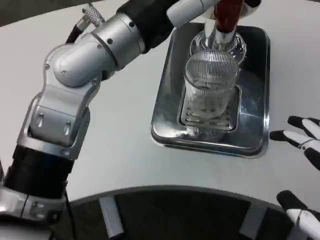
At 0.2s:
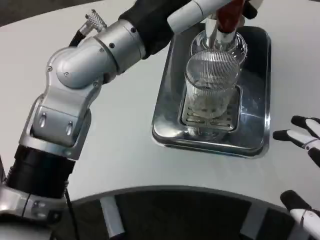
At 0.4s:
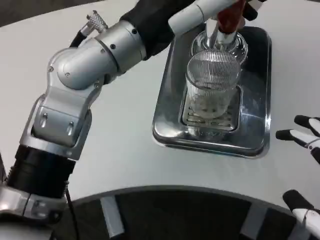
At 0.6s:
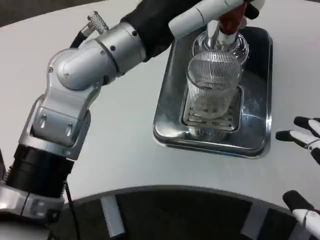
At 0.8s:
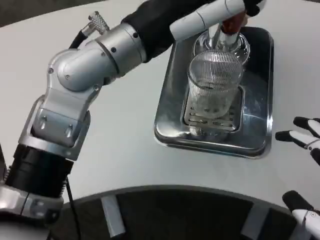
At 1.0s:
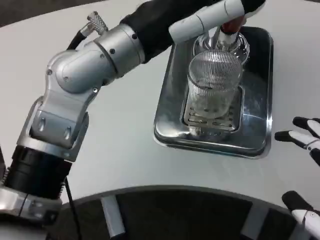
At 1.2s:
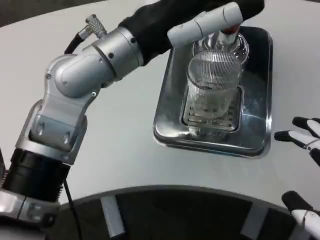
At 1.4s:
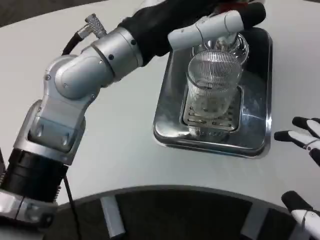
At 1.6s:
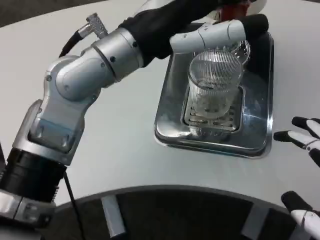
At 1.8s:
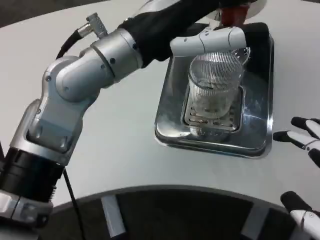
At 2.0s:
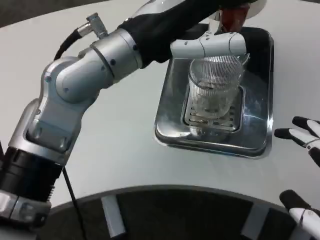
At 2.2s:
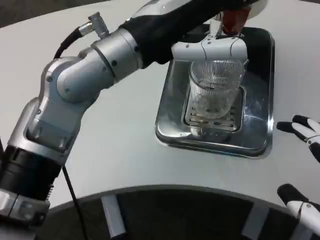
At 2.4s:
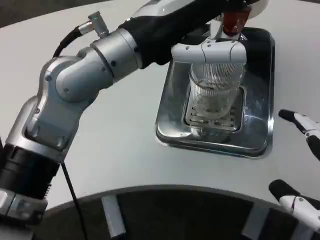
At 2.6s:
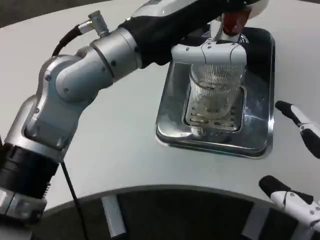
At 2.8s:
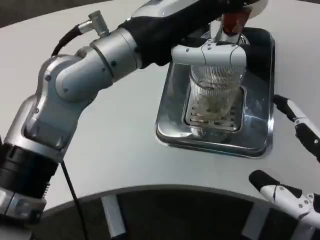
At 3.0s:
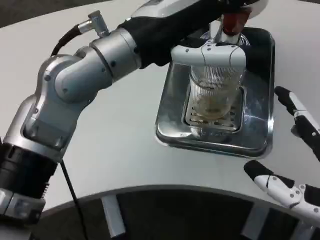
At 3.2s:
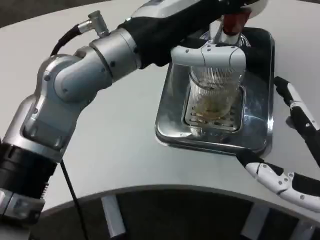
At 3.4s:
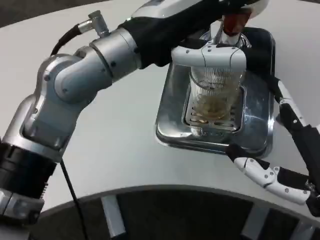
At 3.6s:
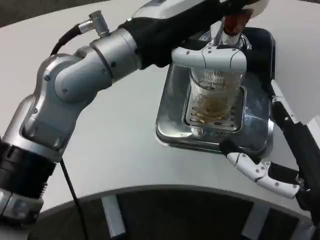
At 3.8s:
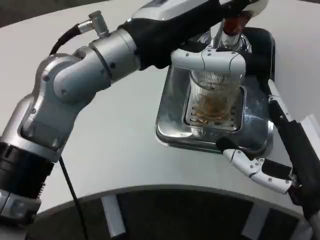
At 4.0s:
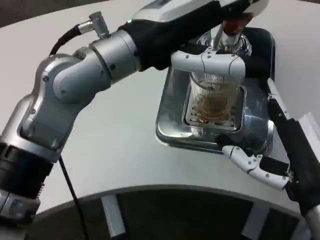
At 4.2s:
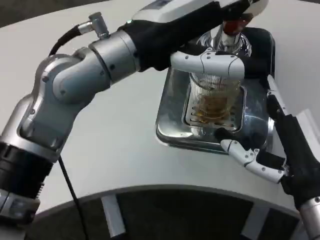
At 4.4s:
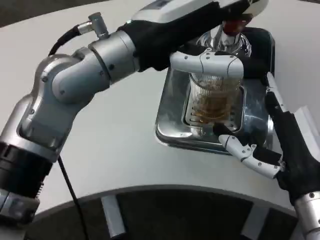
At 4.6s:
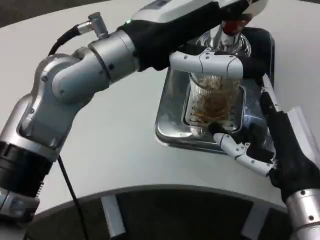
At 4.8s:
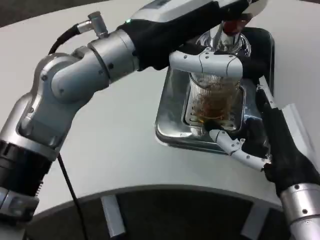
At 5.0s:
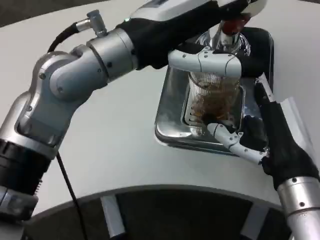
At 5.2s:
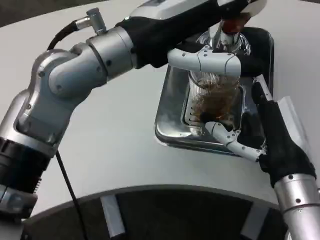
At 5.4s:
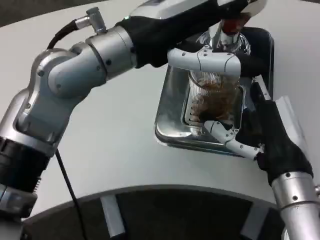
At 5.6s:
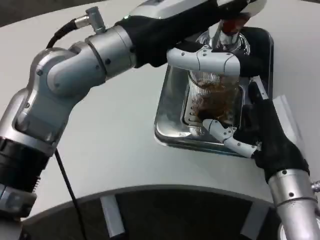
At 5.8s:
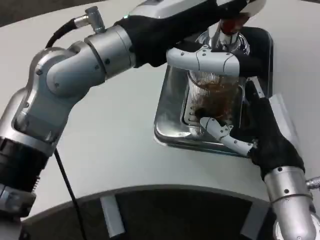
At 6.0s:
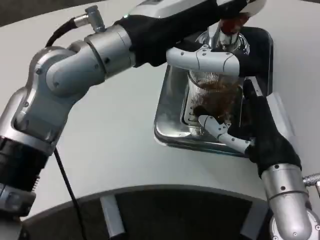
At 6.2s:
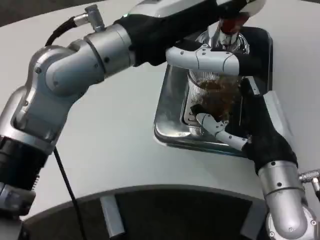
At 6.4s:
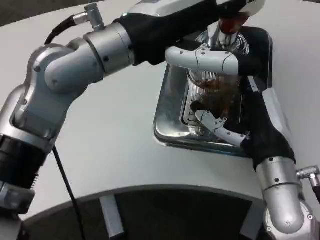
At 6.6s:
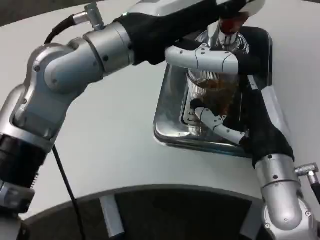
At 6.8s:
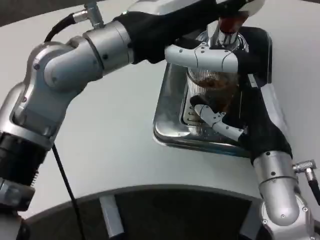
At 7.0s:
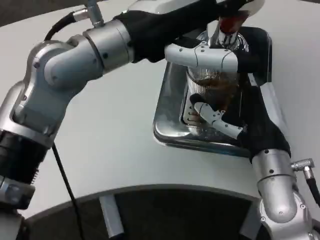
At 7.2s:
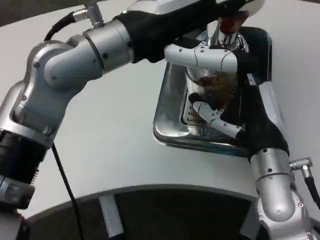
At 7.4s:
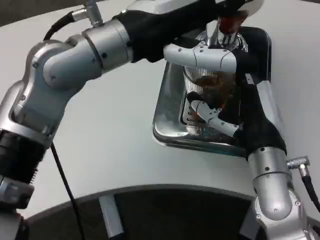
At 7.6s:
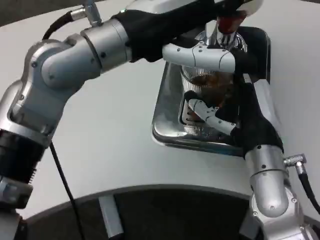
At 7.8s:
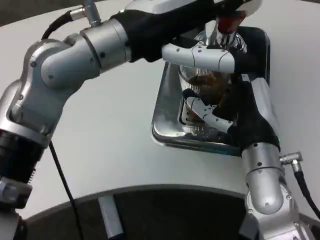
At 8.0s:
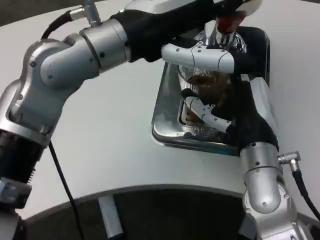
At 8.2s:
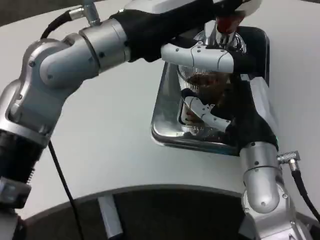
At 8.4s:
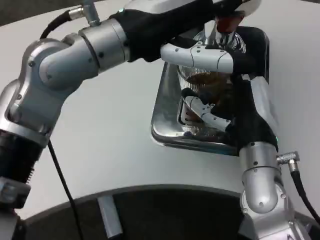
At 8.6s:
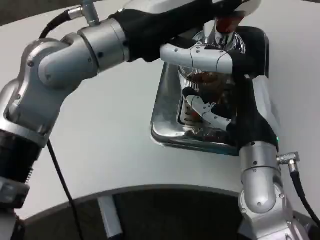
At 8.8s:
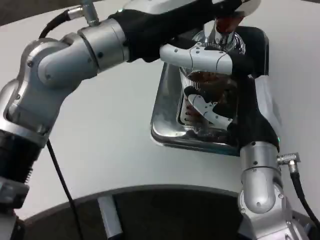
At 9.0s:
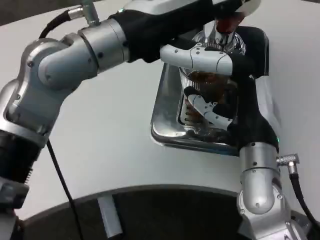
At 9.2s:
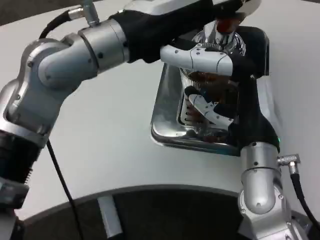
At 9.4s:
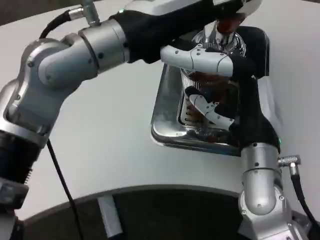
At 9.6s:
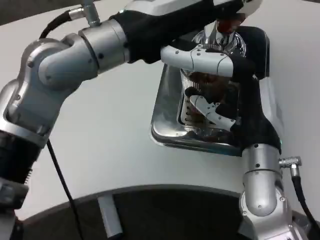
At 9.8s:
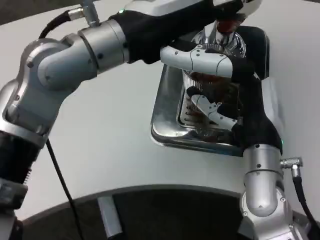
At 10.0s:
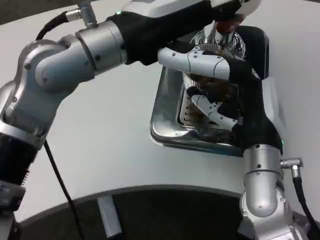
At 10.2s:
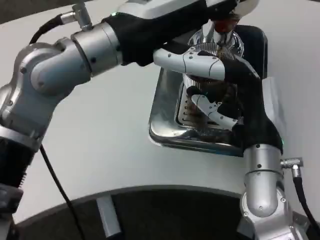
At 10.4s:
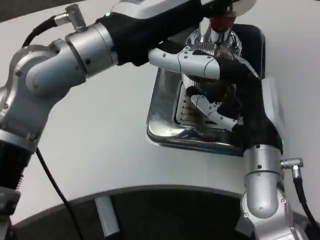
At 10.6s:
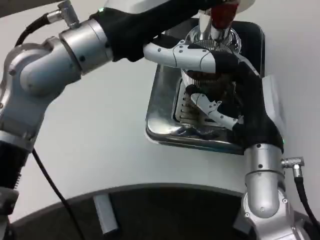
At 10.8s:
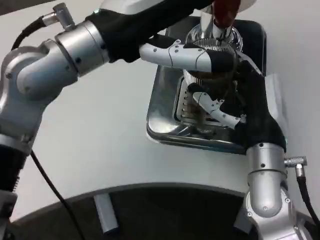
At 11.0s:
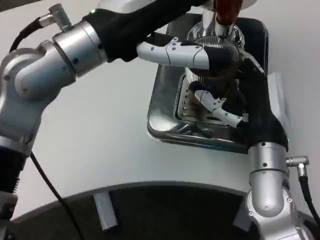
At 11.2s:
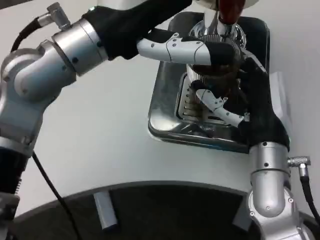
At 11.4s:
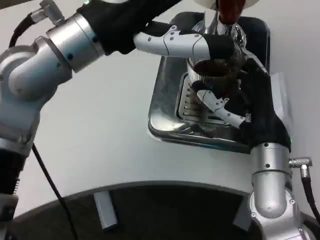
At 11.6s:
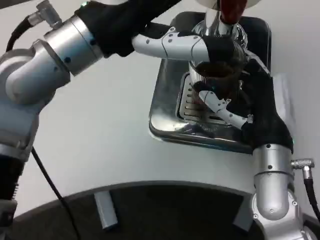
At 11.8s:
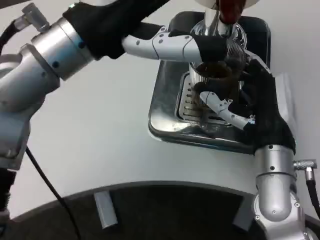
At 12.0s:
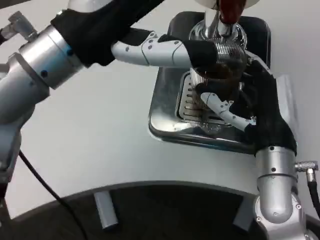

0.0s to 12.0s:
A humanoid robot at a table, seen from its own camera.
Task of the whole recording: Grasp the cup under the faucet to collect the drink, then remove the cup.
1.6s to 3.0s: The right hand changes place by roughly 5 cm.
3.0s to 4.4s: The right hand travels forward by some 10 cm.
4.4s to 6.0s: The right hand changes place by roughly 5 cm.
7.6s to 9.0s: The hands move only a little.

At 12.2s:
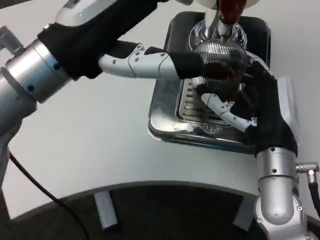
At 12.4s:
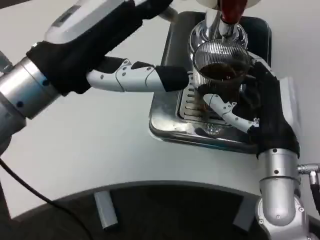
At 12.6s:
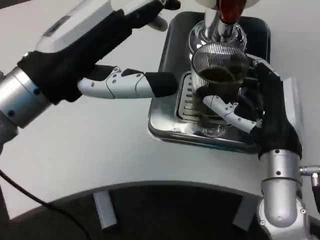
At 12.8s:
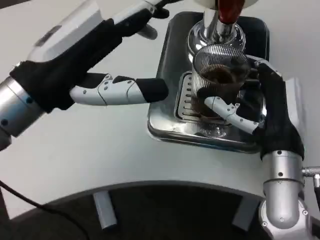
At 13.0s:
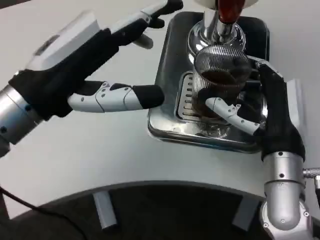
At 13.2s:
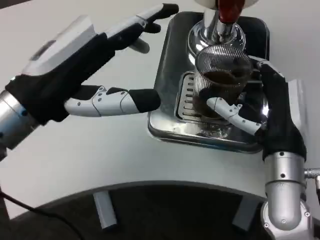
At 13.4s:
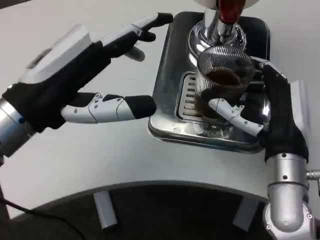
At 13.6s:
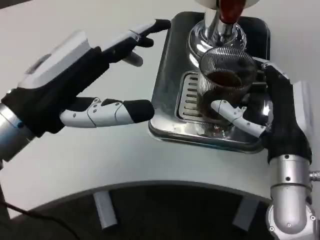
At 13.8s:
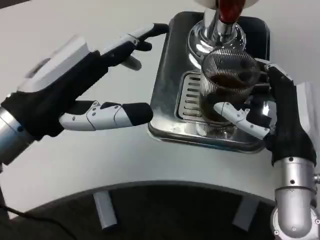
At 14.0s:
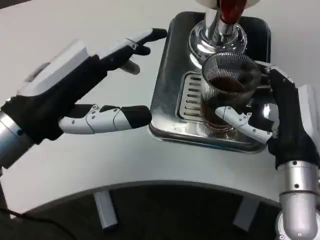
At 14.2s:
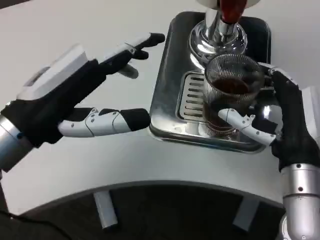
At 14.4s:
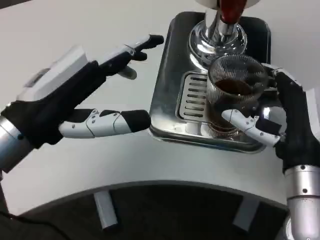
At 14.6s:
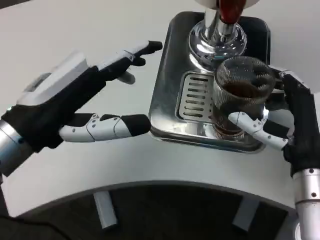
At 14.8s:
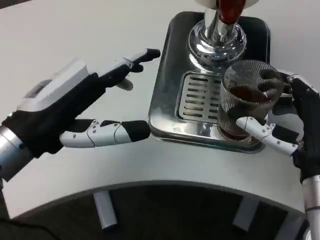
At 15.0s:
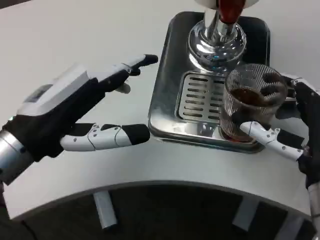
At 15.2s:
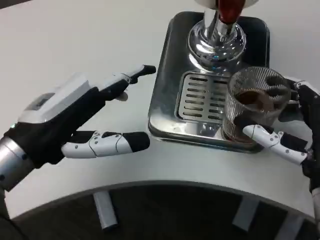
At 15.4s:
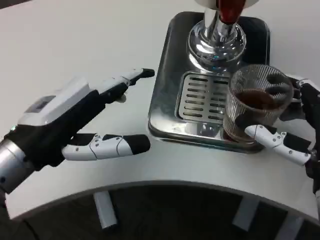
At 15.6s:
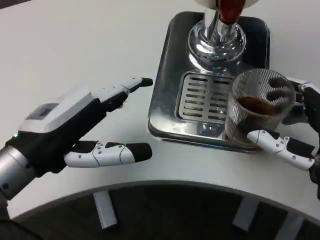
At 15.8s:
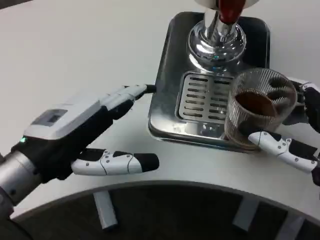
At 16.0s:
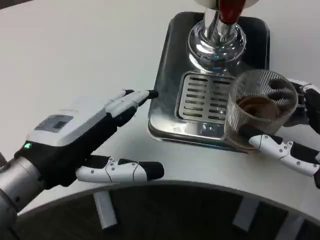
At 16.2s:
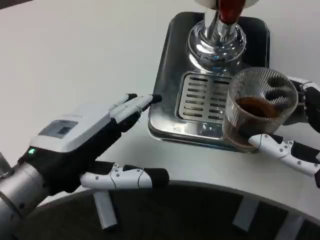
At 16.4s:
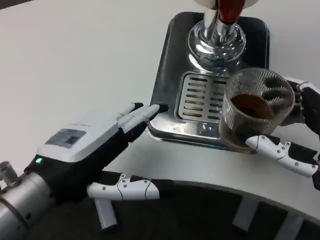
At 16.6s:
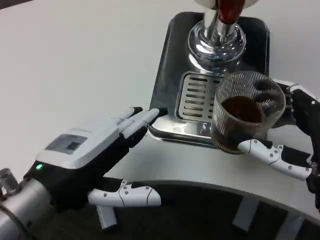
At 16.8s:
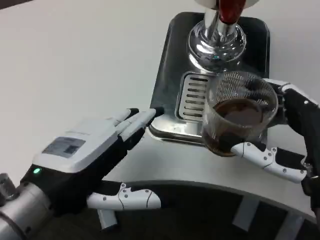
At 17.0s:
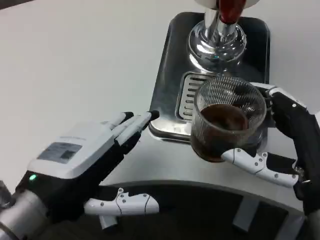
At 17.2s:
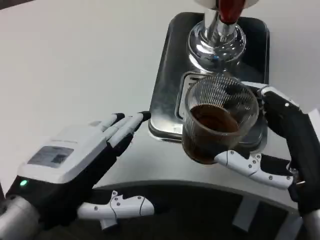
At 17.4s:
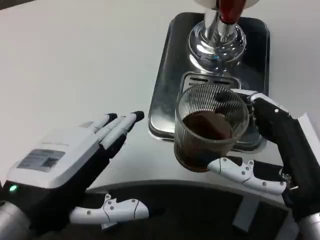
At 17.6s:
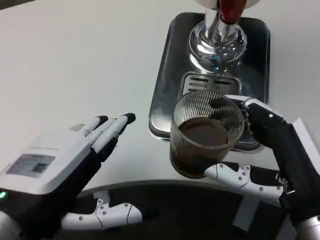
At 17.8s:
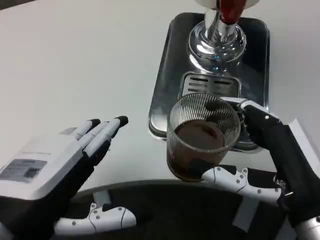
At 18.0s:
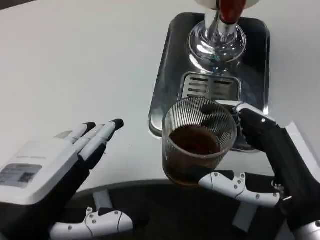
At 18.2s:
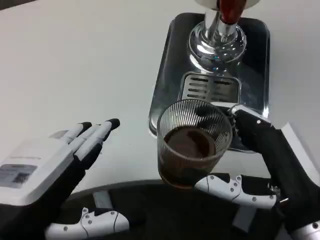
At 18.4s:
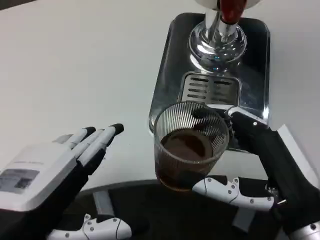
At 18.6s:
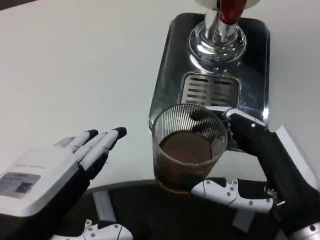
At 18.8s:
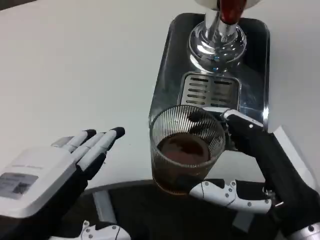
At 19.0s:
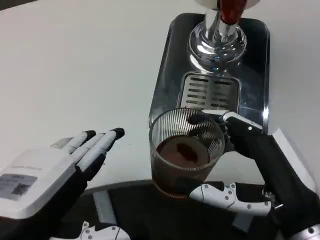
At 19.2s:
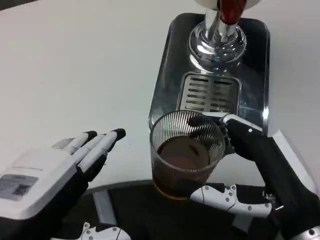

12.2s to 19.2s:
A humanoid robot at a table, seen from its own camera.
Task of the whole recording: Grasp the cup under the faucet to collect the drink, then remove the cup.
12.2s to 13.6s: The left hand goes roughly 5 cm downward.
13.6s to 15.0s: The right hand moves about 5 cm.
15.0s to 16.4s: The left hand changes place by about 5 cm.
16.4s to 17.8s: The left hand shifts approximately 5 cm backward.

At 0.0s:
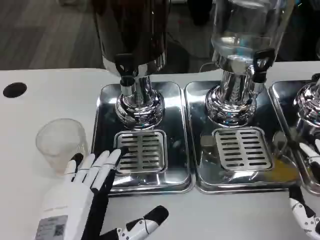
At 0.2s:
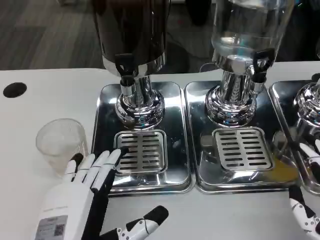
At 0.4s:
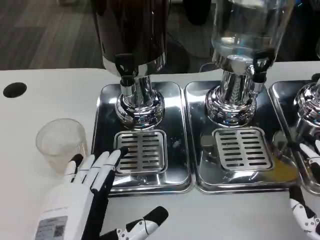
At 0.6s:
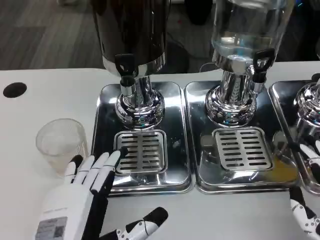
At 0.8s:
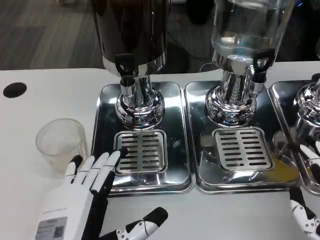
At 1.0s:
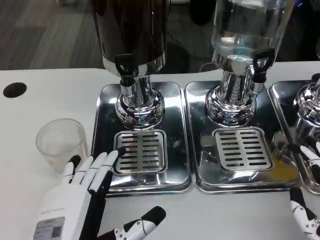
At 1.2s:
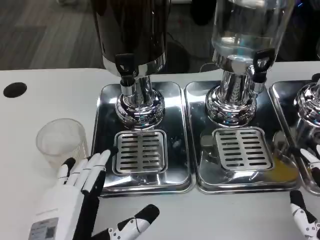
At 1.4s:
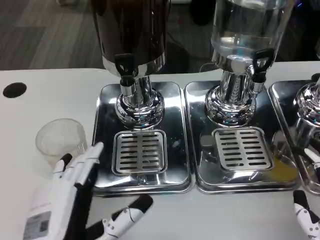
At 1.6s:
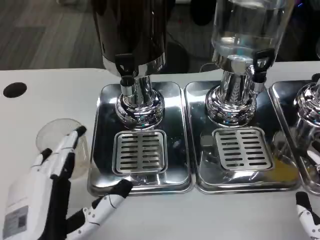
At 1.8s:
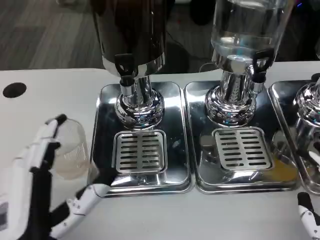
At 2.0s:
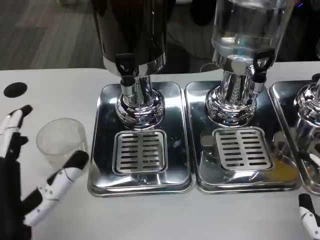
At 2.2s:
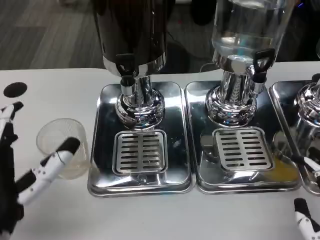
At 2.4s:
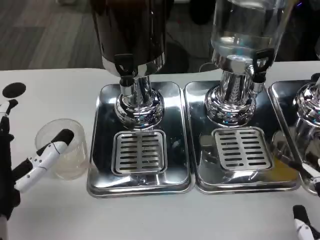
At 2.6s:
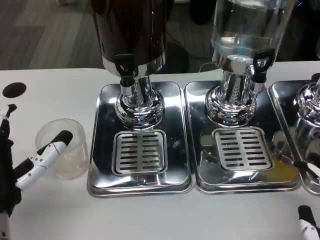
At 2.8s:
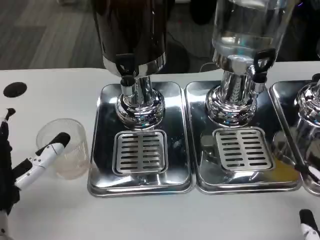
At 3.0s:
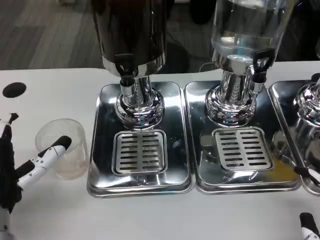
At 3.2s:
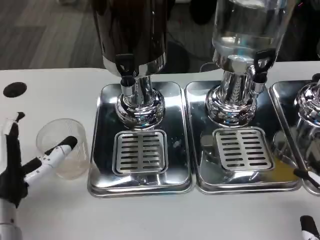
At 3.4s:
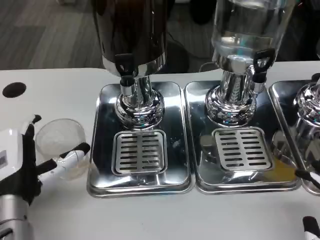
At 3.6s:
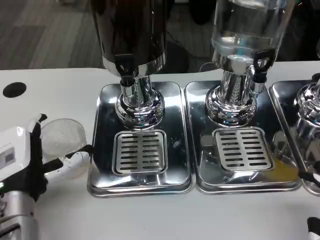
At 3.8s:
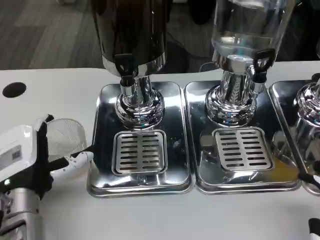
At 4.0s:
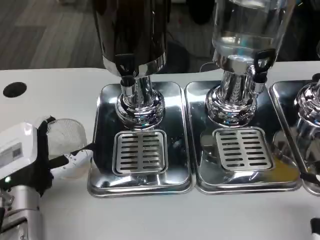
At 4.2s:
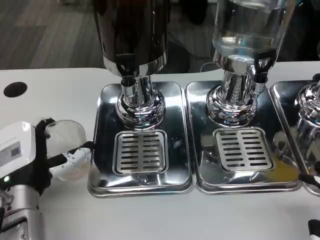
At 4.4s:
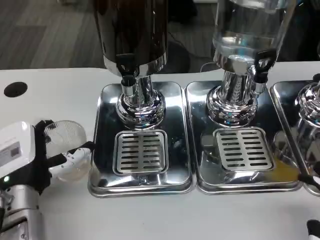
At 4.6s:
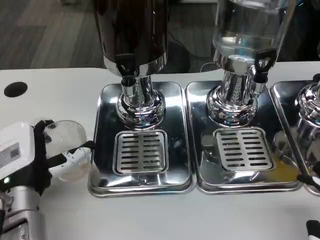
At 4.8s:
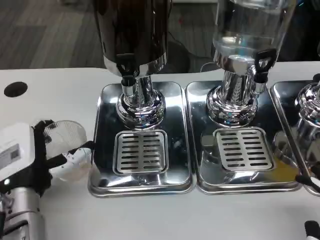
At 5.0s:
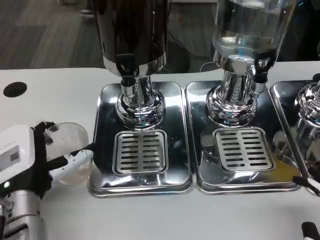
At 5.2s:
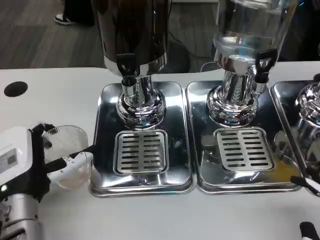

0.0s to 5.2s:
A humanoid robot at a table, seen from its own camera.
Task of the whole recording: Grasp the cup under the faucet to collect the drink, then remove the cup.
0.0s to 1.8s: The hands move only a little.
1.8s to 3.4s: The left hand moves forward, approximately 10 cm.
